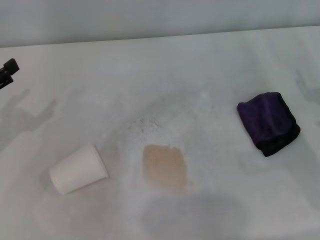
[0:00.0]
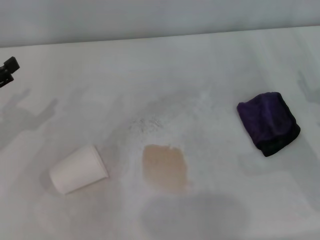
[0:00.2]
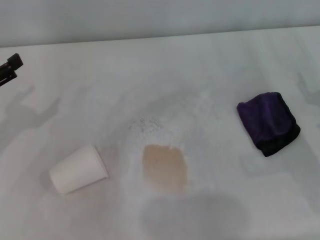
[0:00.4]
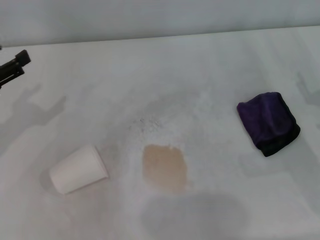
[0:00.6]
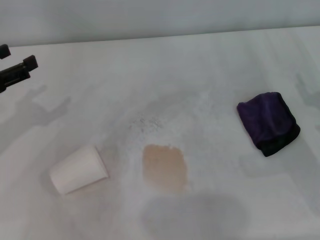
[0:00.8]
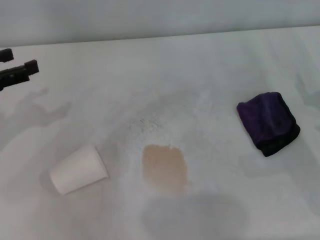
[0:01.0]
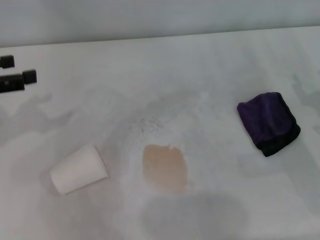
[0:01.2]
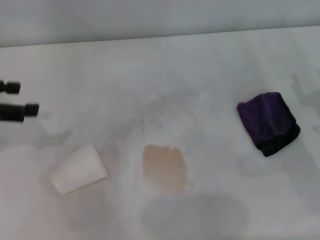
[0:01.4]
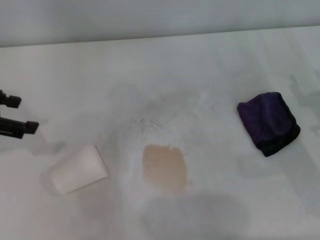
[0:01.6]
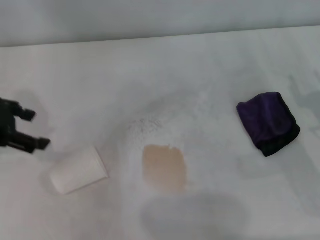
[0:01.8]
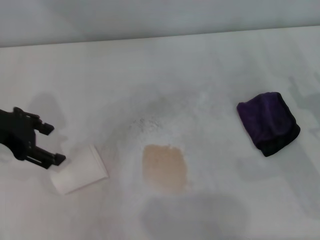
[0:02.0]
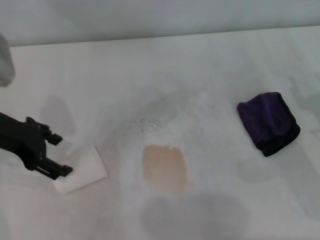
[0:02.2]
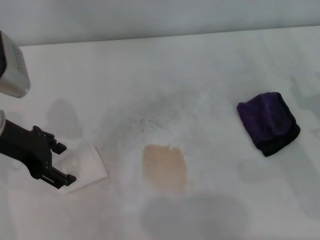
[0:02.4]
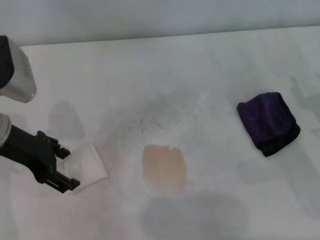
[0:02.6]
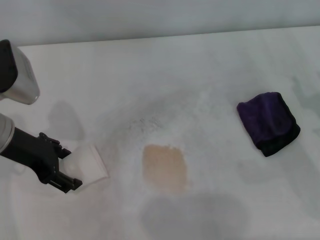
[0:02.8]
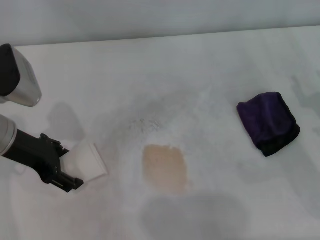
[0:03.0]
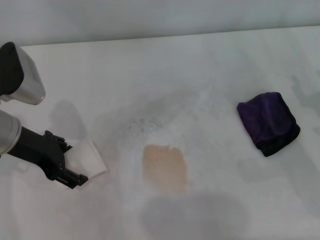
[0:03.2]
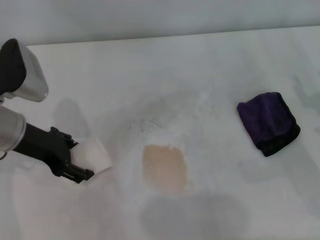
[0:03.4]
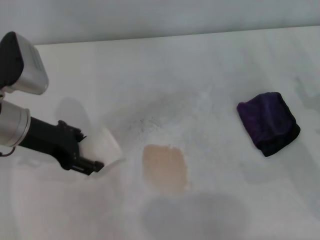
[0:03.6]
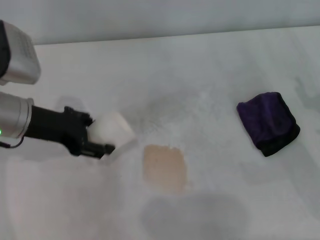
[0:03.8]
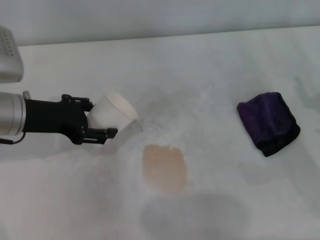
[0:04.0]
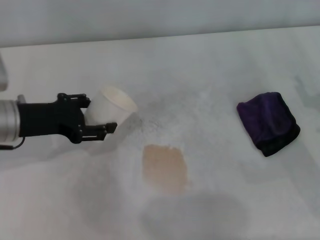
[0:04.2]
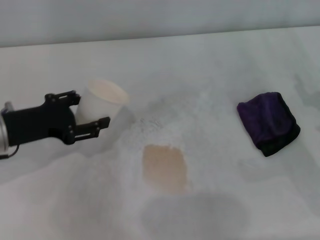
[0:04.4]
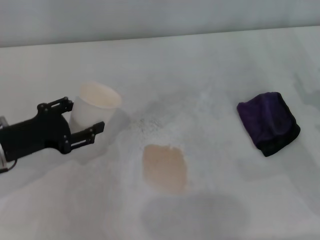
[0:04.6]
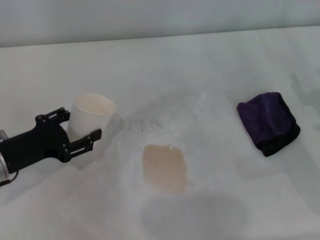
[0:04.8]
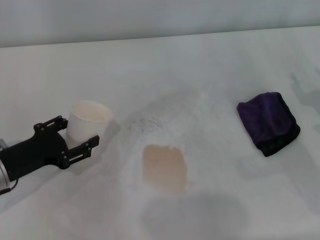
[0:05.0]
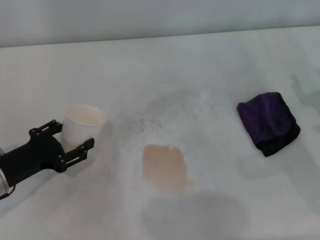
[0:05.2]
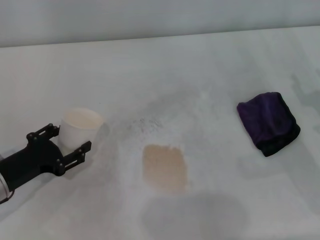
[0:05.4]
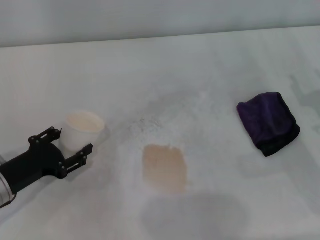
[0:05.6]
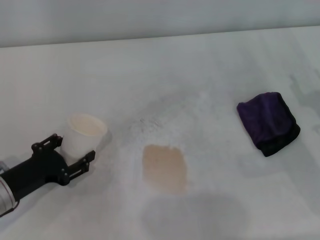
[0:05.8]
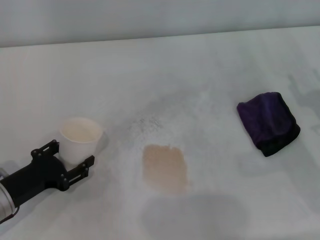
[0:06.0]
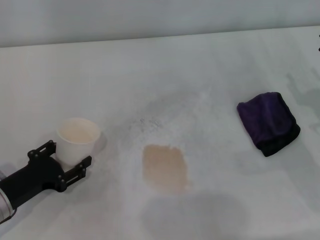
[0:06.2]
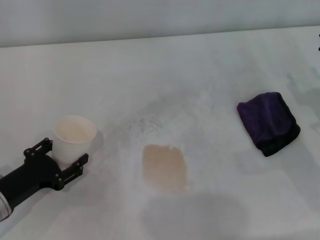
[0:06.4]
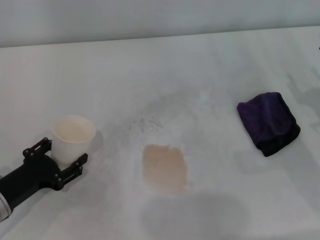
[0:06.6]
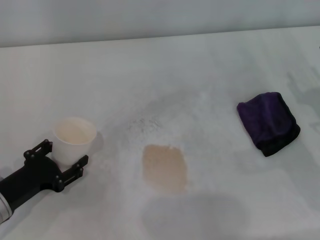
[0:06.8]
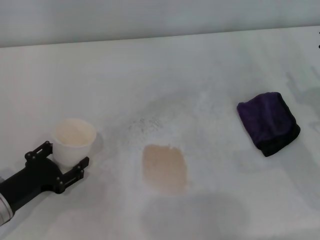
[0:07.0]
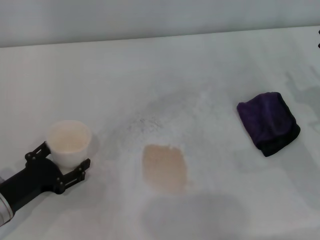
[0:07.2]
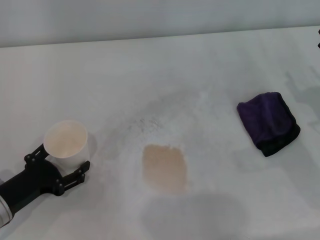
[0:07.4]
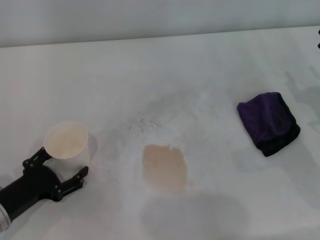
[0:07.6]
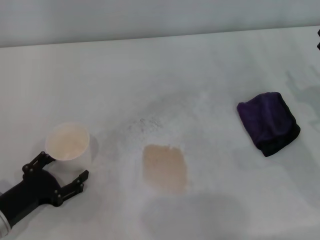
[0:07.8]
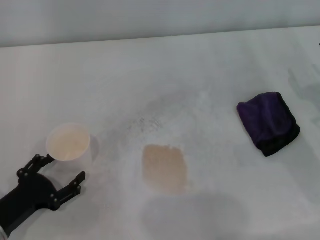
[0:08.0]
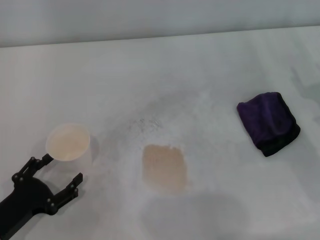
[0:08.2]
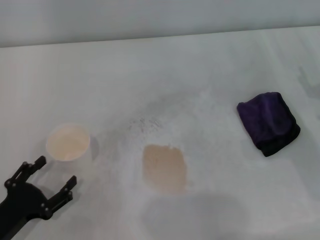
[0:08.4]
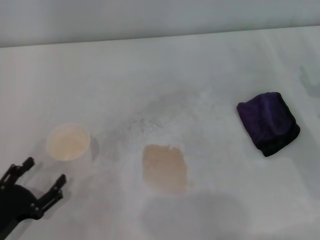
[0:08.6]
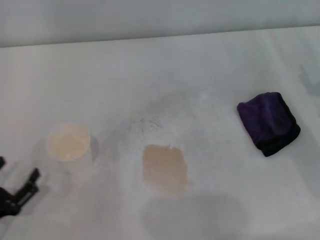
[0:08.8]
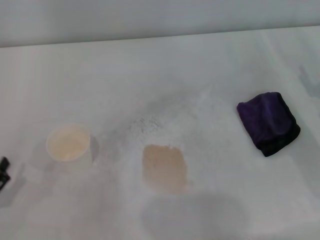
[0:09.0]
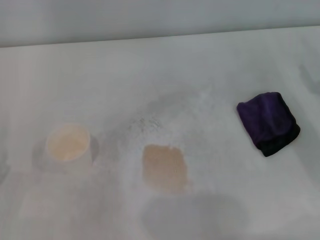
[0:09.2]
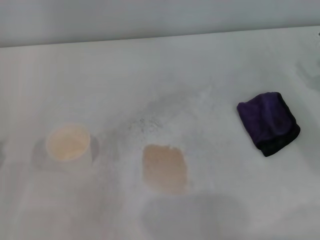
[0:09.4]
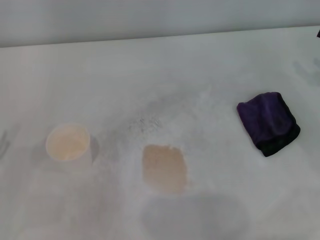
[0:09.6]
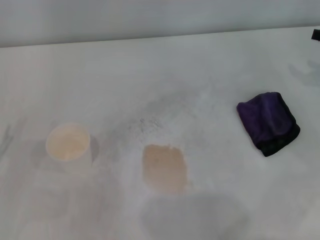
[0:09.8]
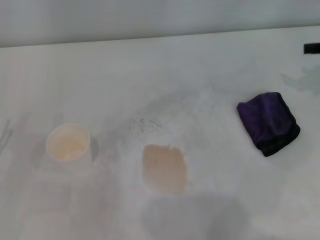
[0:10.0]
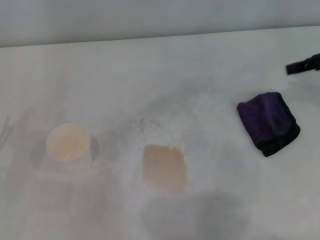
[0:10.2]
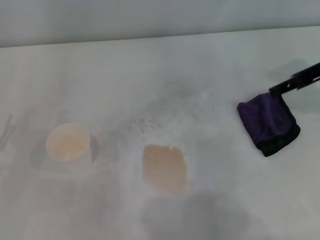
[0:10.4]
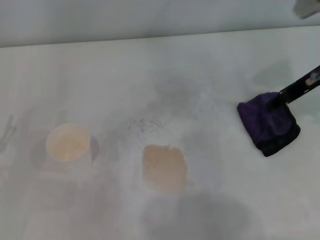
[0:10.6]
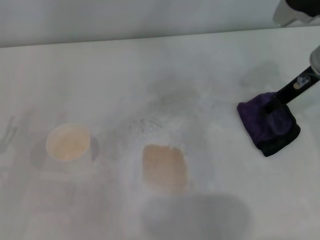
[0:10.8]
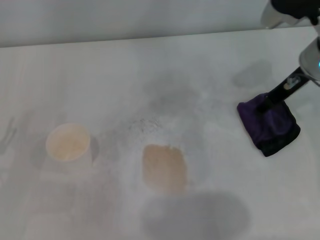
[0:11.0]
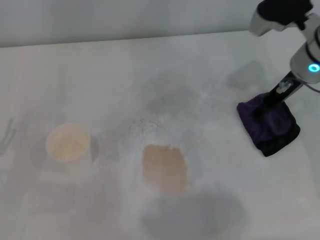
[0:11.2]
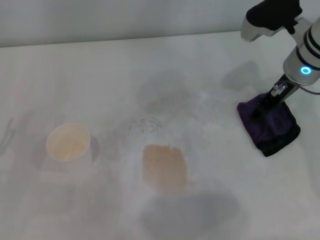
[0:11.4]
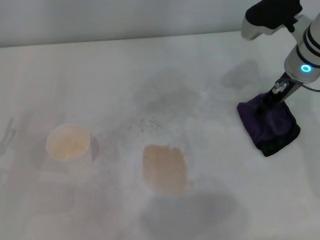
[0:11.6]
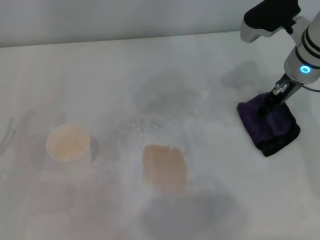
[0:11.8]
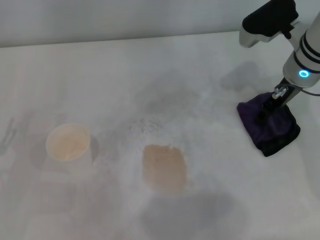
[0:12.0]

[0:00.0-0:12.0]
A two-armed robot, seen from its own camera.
Step, 0:00.0 to 0:02.8: Grasp the paper cup with the left gripper.
Step, 0:03.0 to 0:07.2: Stand the paper cup upright with the left gripper.
0:00.0 to 0:01.6: The left gripper travels upward by about 10 cm.
0:01.6 to 0:03.0: The left gripper goes roughly 10 cm to the right and downward.
0:03.0 to 0:04.4: The left gripper closes.
0:04.4 to 0:06.0: The left gripper shifts approximately 10 cm downward and backward.
0:06.0 to 0:07.6: The left gripper opens its fingers.
0:07.6 to 0:09.0: The left gripper goes about 5 cm backward.
0:09.0 to 0:10.4: The right gripper heads upward, forward and to the left, covering approximately 15 cm.
0:10.4 to 0:12.0: The right gripper is displaced to the left and downward by about 10 cm.

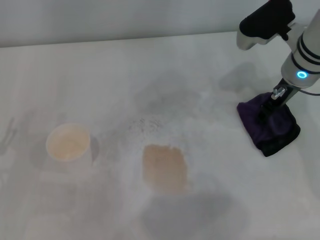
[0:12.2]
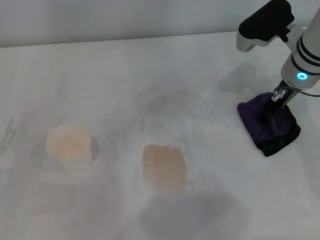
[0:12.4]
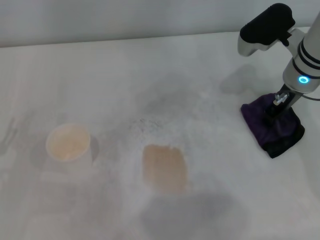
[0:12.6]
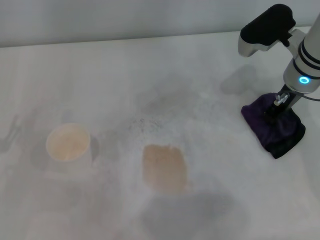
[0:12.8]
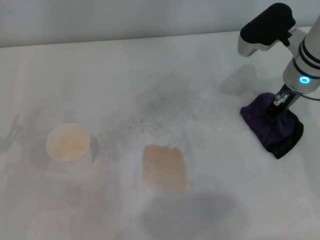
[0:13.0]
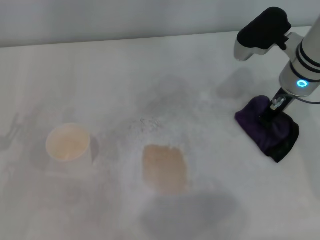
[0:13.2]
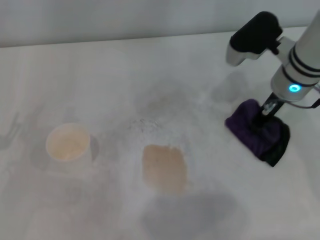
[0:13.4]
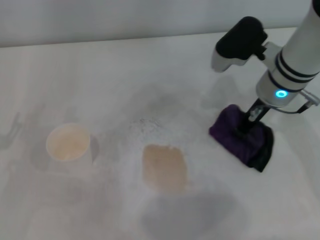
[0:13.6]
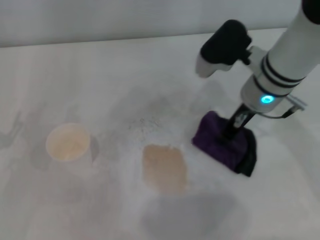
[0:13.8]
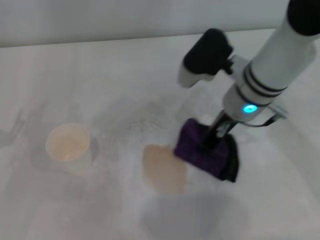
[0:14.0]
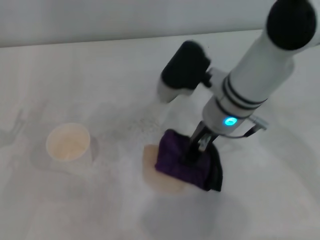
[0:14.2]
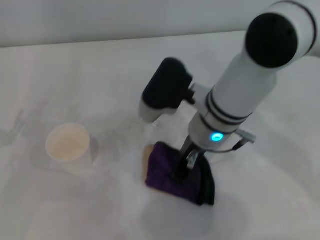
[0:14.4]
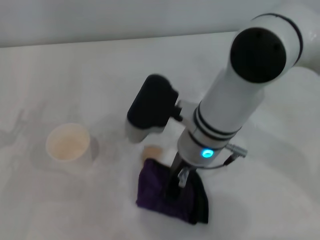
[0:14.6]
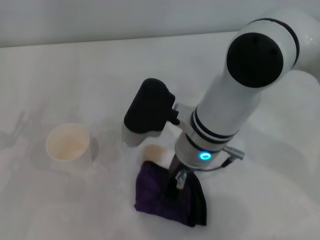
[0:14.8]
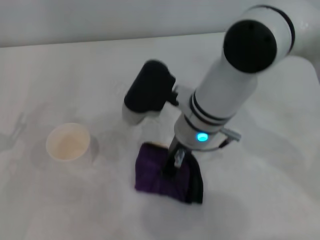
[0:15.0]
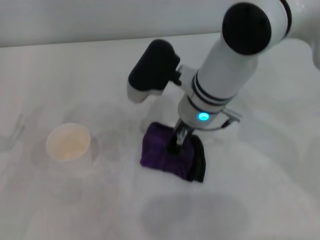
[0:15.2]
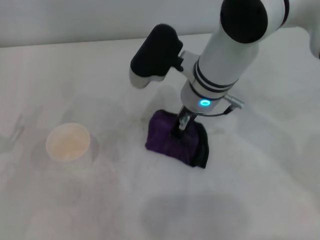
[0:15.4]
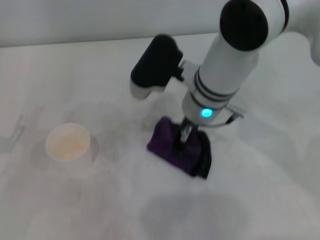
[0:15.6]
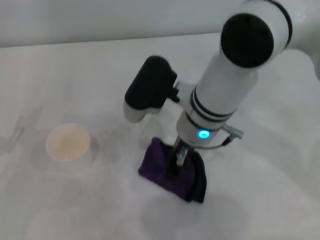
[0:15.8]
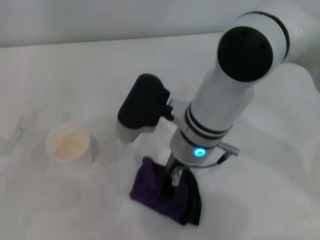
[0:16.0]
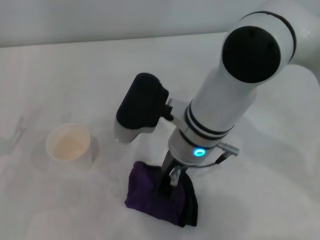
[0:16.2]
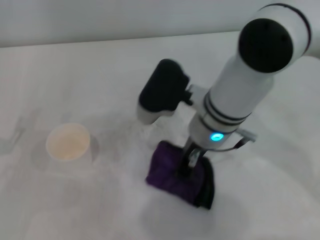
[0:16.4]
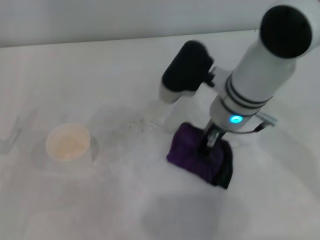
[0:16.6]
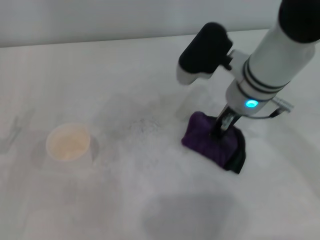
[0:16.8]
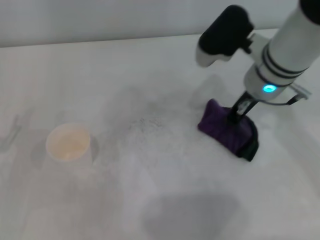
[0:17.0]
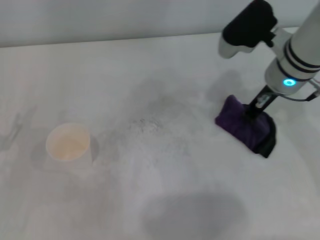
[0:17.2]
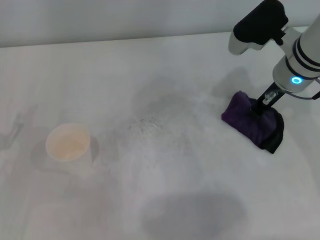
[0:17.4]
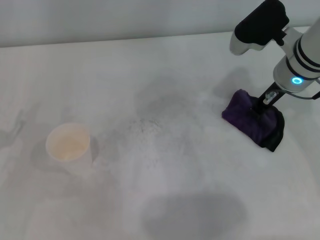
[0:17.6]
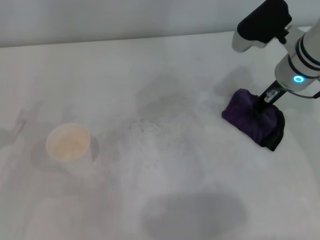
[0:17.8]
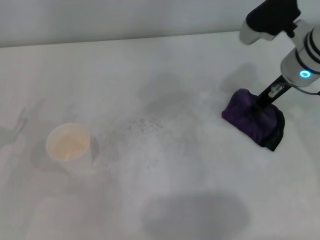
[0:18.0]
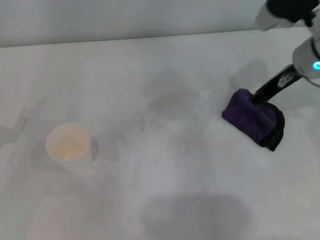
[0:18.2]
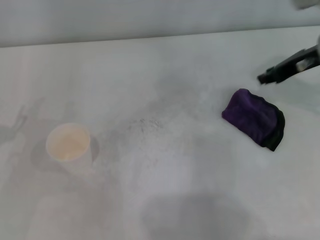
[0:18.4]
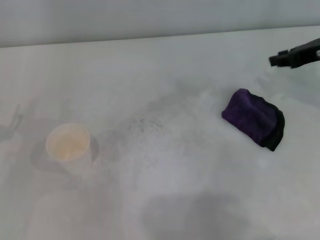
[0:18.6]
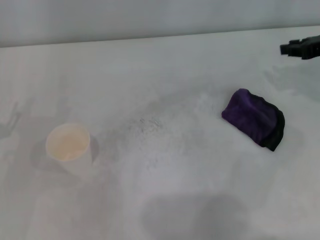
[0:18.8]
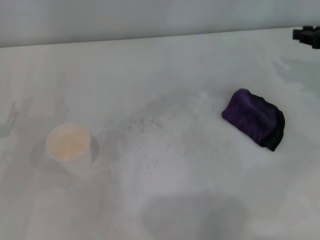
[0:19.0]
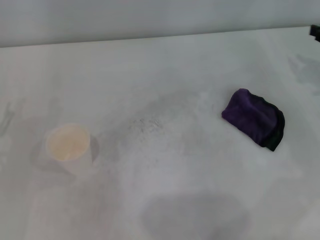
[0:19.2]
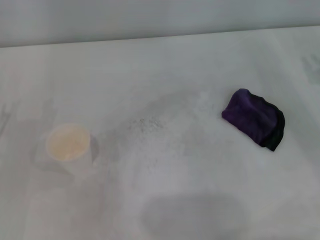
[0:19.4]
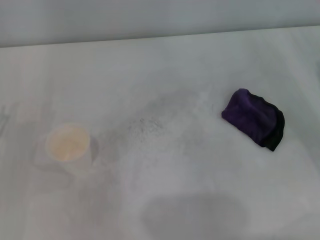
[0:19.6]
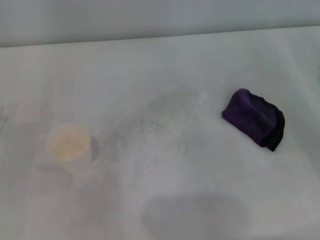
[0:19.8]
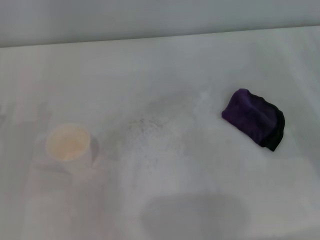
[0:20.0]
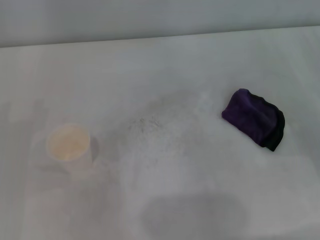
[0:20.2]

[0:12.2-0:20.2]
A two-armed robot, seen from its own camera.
Step, 0:12.6 to 0:16.8: Wipe the stains off the table with the right gripper.
Step, 0:17.0 to 0:17.4: Place the rag on the table with the right gripper.
0:12.2 to 0:13.8: The right gripper moves to the left, about 5 cm, and closes.
0:13.8 to 0:15.4: The right gripper heads to the left, covering approximately 10 cm.
0:15.4 to 0:17.0: The right gripper shifts approximately 10 cm to the right.
0:17.0 to 0:18.6: The right gripper travels to the right by roughly 15 cm.
0:18.6 to 0:20.2: The right gripper moves backward, downward and to the right, some 15 cm.

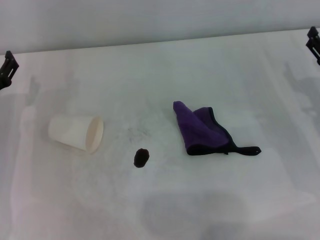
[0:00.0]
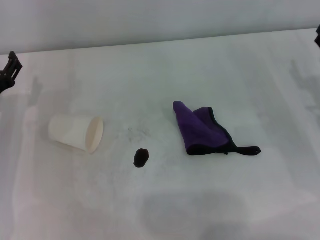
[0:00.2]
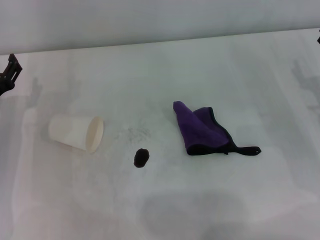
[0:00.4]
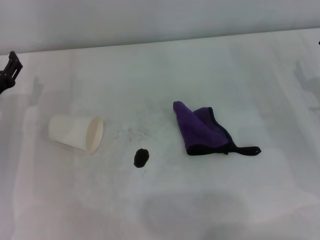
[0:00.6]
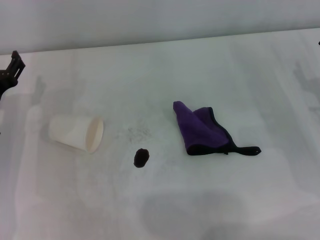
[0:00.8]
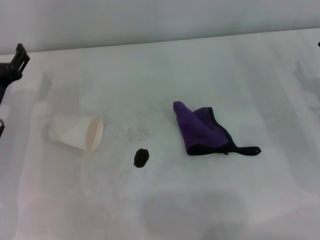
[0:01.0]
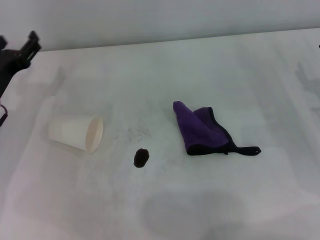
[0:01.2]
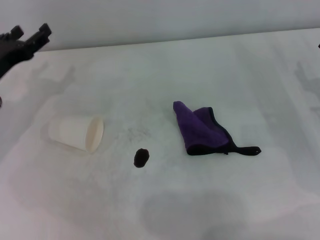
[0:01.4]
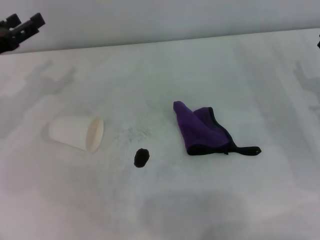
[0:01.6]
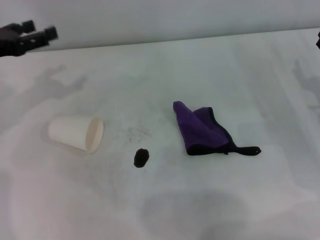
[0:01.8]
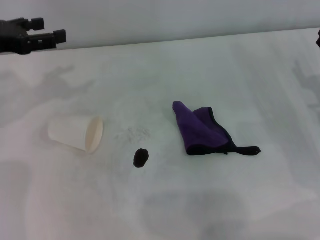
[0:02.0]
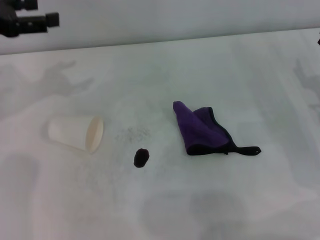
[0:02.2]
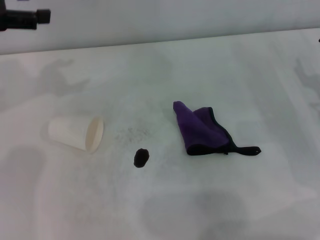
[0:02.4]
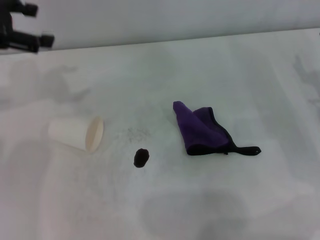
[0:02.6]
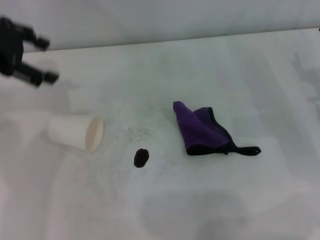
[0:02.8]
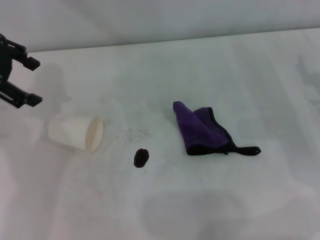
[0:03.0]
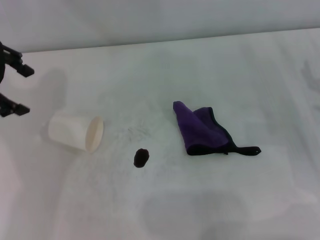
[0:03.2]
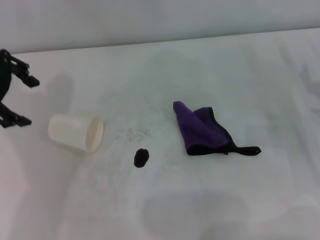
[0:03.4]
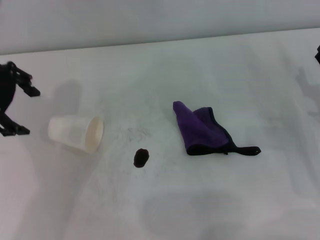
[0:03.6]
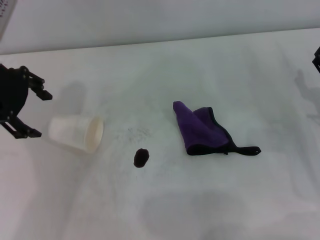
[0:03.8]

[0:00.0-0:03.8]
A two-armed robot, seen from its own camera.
0:00.0 to 0:01.2: The grippers stay close to where they were, moving slightly.
0:01.2 to 0:02.6: The left gripper shifts about 20 cm upward.
0:02.6 to 0:03.8: The left gripper goes about 5 cm to the right.
